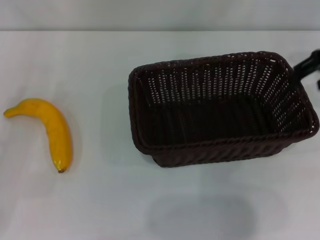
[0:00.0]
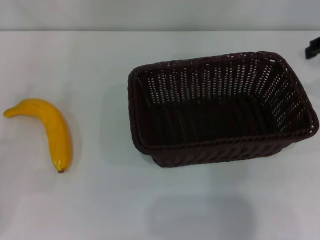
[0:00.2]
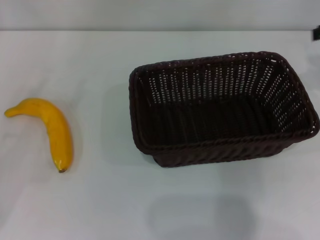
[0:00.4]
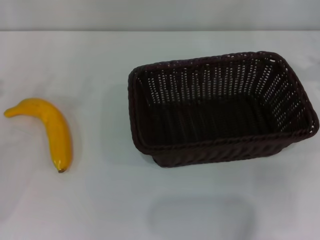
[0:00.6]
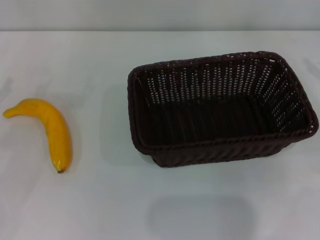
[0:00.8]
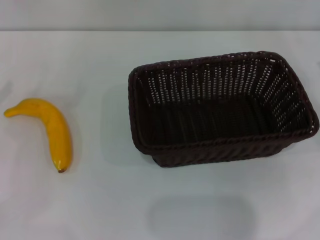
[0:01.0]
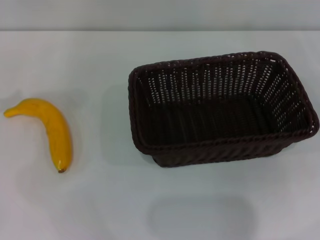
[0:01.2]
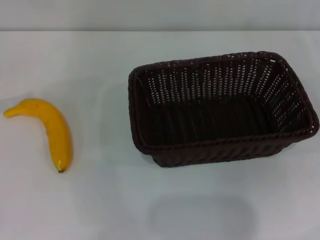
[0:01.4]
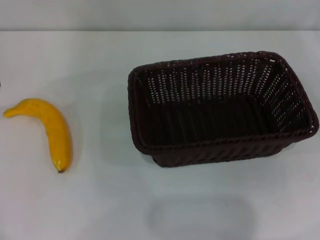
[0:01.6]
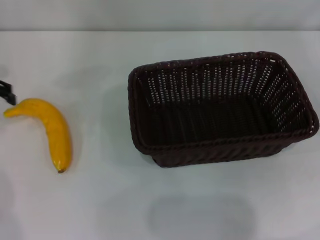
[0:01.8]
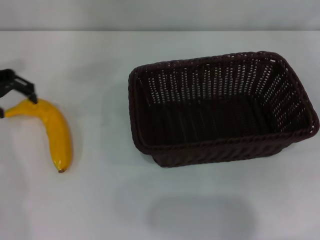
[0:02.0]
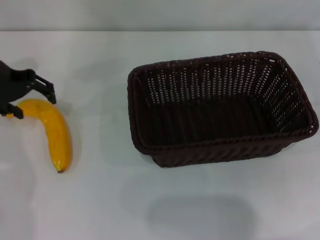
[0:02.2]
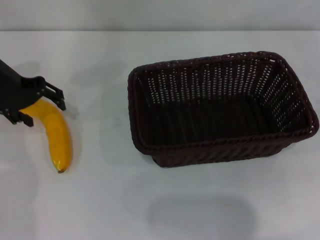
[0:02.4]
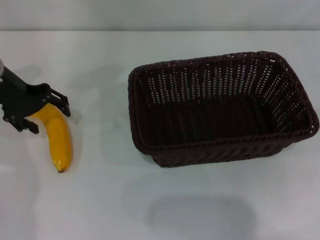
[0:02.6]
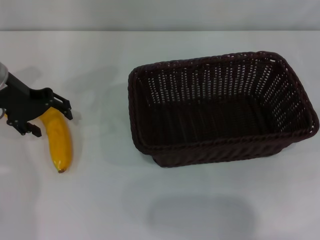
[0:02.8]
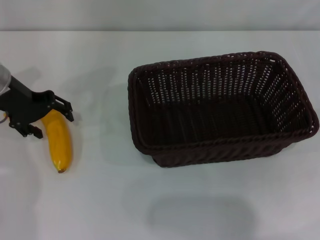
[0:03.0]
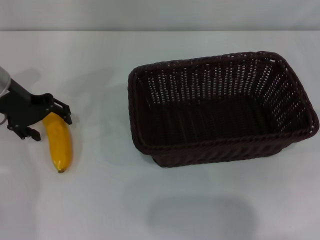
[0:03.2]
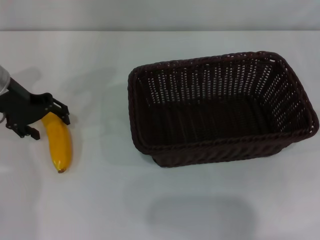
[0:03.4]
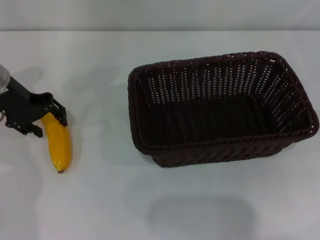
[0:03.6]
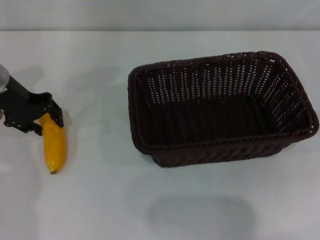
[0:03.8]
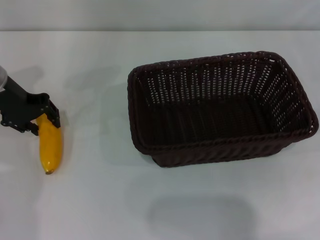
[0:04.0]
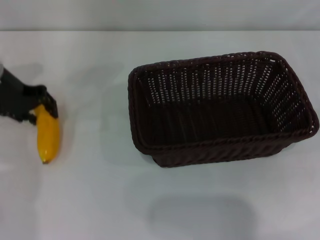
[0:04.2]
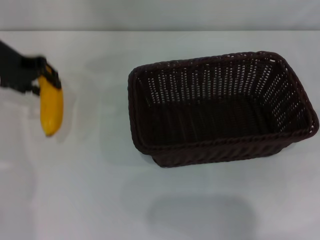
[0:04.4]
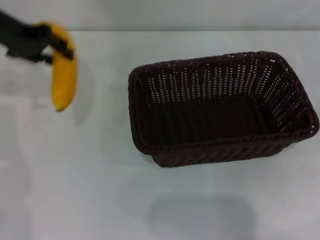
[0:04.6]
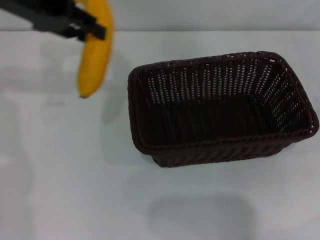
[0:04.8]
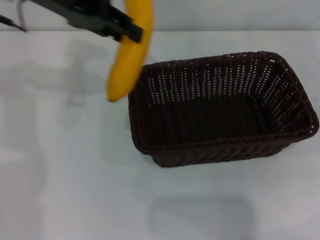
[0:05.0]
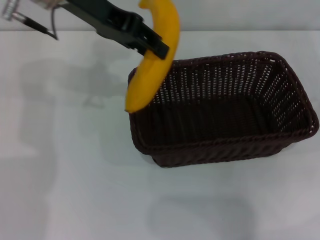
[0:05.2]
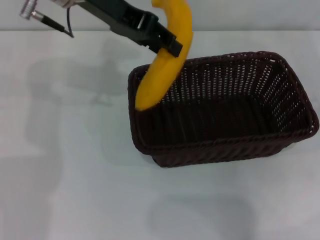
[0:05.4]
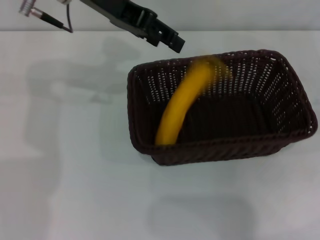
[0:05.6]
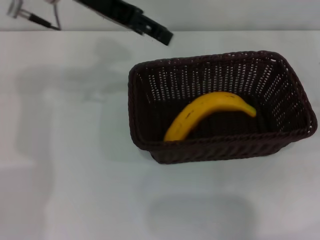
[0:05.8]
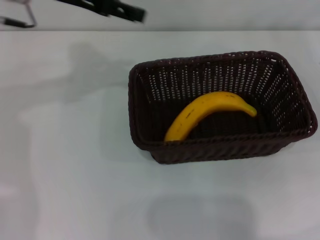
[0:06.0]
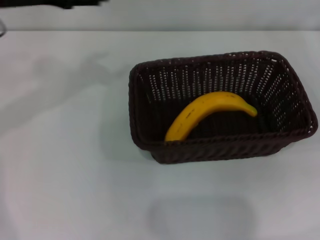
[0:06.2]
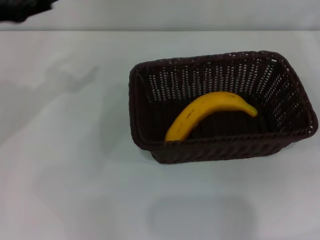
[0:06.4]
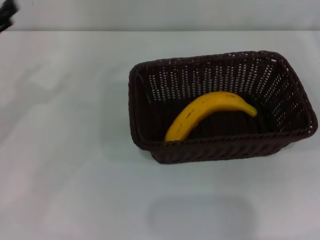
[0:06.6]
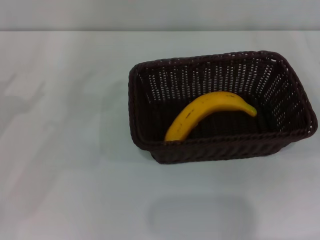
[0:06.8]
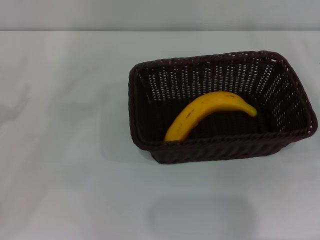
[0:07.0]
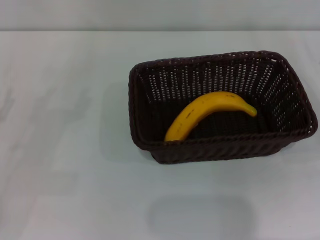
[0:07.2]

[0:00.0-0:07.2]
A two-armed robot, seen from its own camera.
Step, 0:00.6 to 0:04.2: Pick up the banana with the left gripper.
Step, 0:04.6 to 0:05.8: Place the banana into the dark basket with the left gripper.
0:00.0 to 0:01.4: The right gripper is displaced to the right, downward and backward by roughly 20 cm.
0:01.4 to 0:02.8: The left gripper goes some 15 cm to the right, downward and forward.
0:02.8 to 0:04.4: The left gripper closes.
0:04.4 to 0:05.8: The left gripper goes about 15 cm to the right and upward, and opens up.
0:05.8 to 0:07.2: The left gripper travels downward, to the left and backward by some 35 cm; the right gripper changes place by roughly 5 cm.

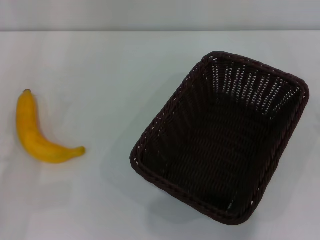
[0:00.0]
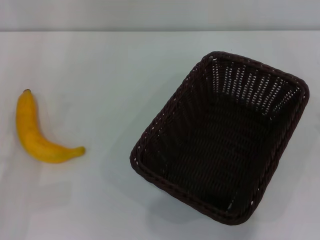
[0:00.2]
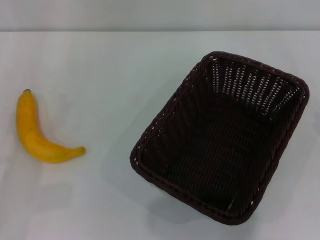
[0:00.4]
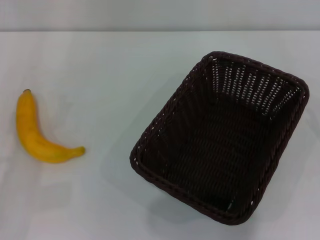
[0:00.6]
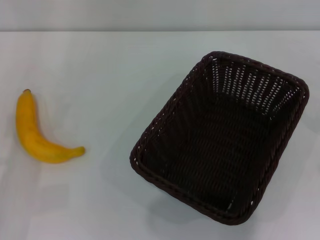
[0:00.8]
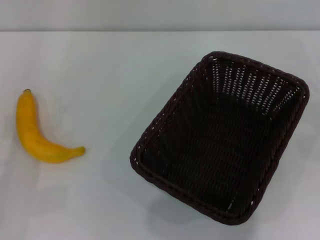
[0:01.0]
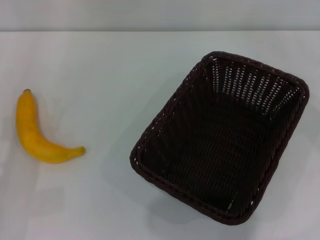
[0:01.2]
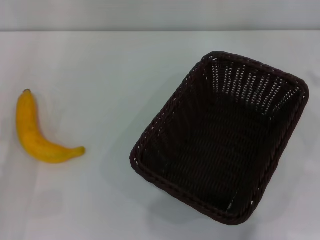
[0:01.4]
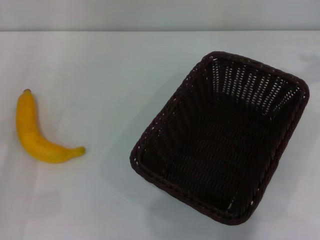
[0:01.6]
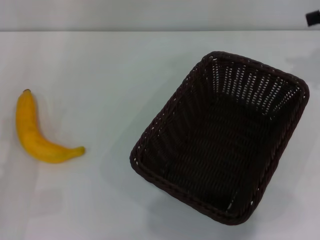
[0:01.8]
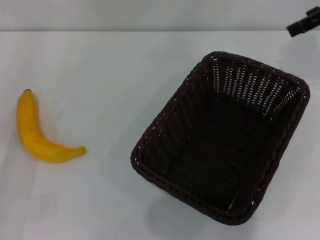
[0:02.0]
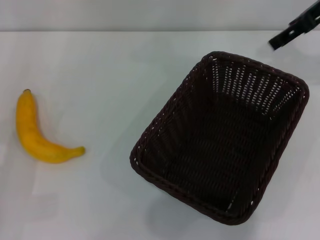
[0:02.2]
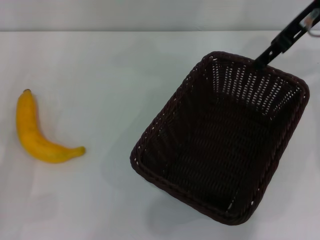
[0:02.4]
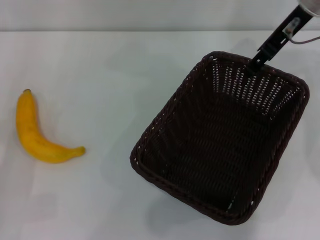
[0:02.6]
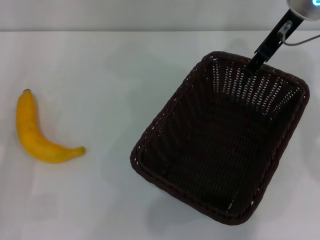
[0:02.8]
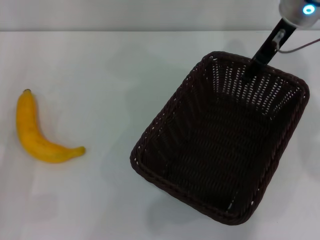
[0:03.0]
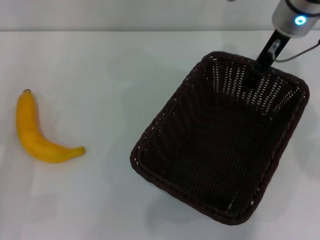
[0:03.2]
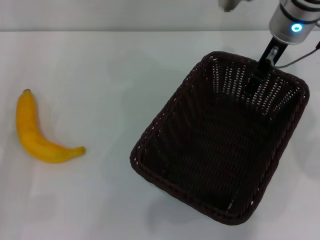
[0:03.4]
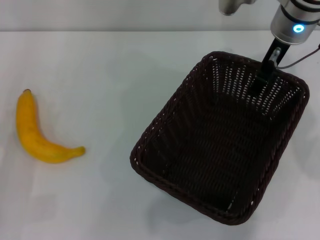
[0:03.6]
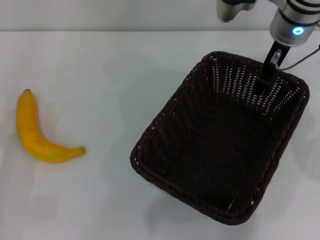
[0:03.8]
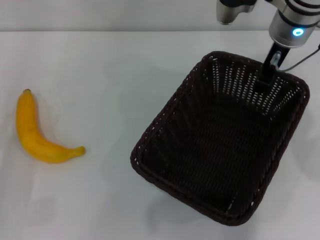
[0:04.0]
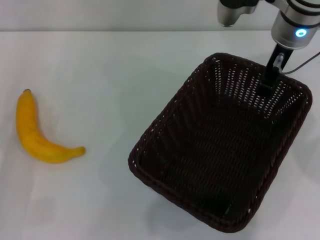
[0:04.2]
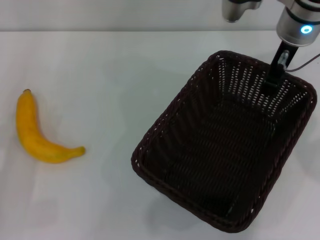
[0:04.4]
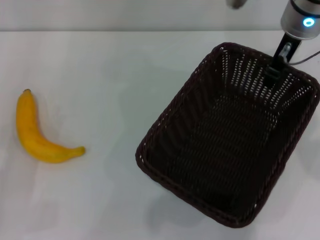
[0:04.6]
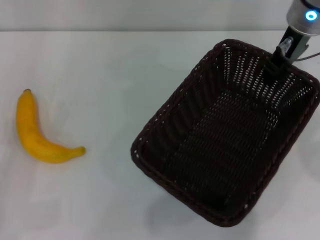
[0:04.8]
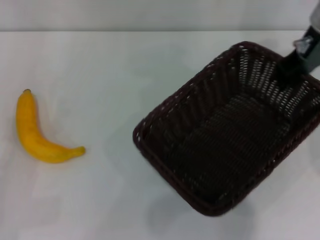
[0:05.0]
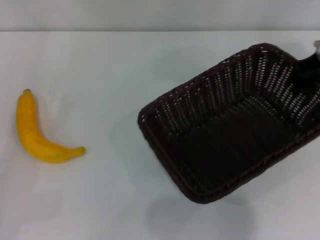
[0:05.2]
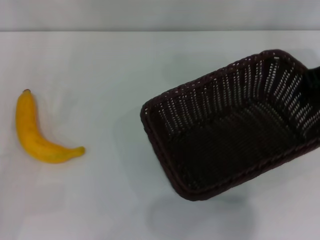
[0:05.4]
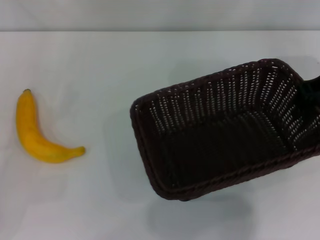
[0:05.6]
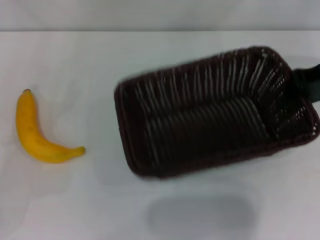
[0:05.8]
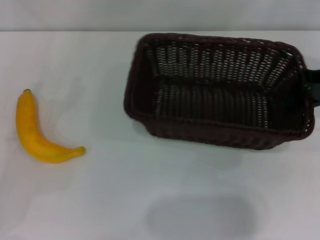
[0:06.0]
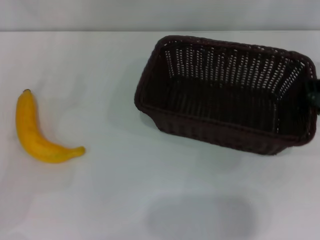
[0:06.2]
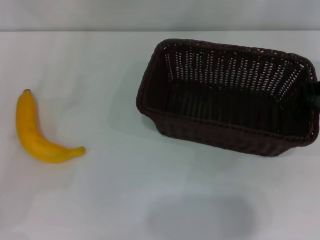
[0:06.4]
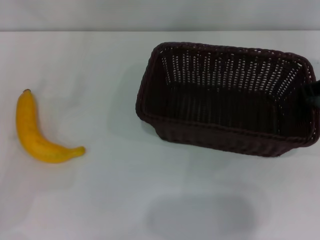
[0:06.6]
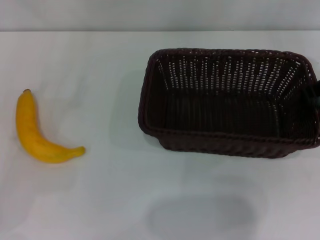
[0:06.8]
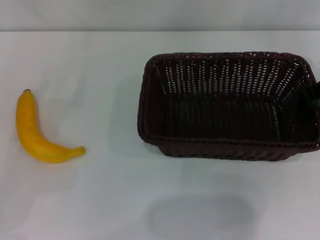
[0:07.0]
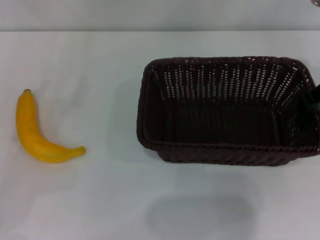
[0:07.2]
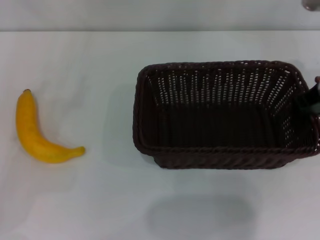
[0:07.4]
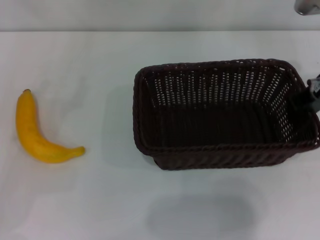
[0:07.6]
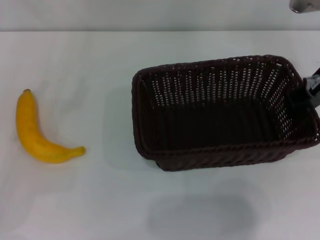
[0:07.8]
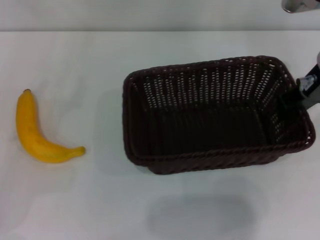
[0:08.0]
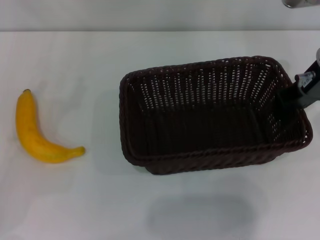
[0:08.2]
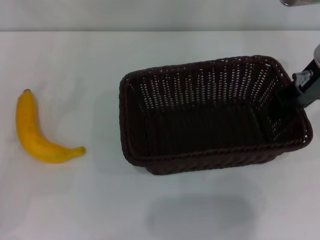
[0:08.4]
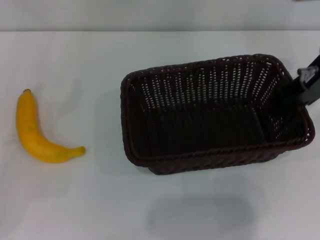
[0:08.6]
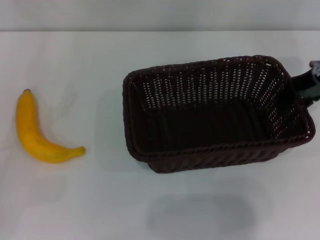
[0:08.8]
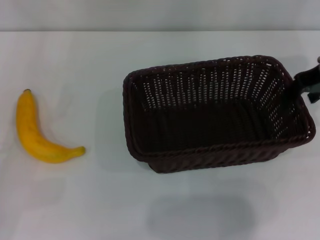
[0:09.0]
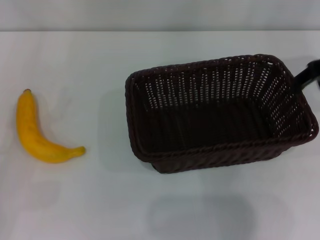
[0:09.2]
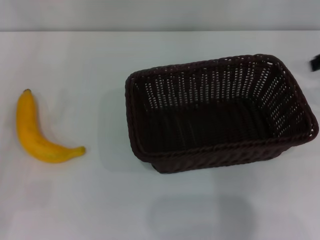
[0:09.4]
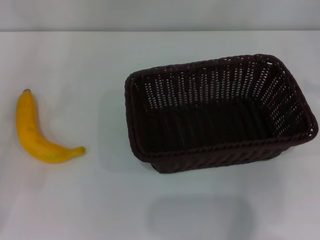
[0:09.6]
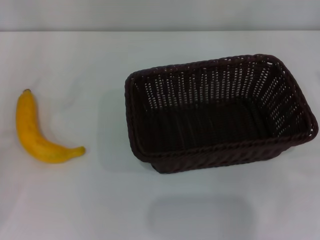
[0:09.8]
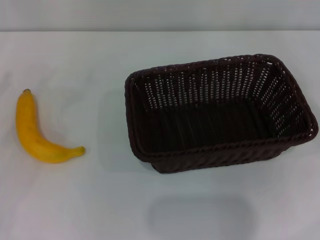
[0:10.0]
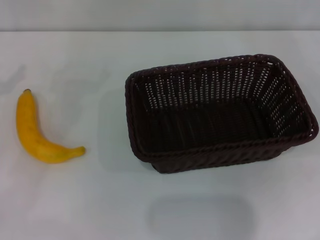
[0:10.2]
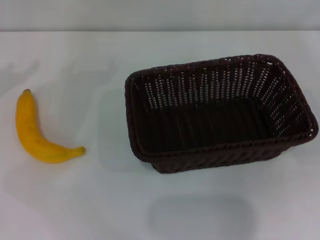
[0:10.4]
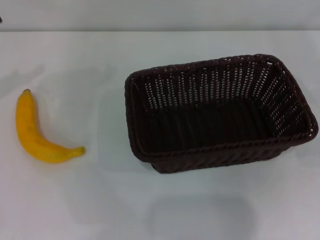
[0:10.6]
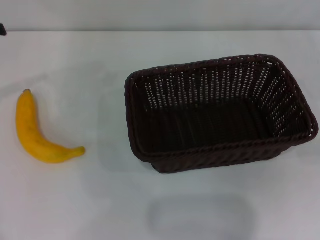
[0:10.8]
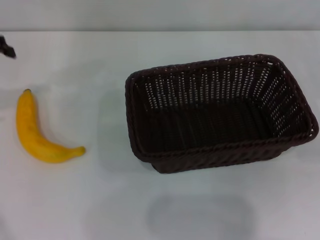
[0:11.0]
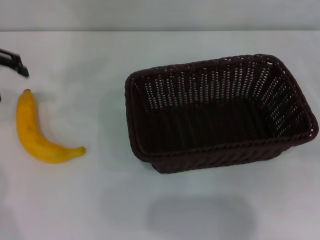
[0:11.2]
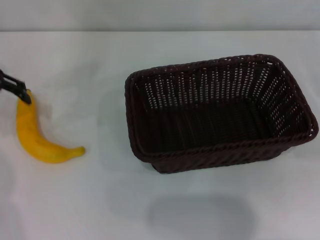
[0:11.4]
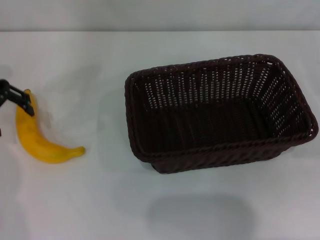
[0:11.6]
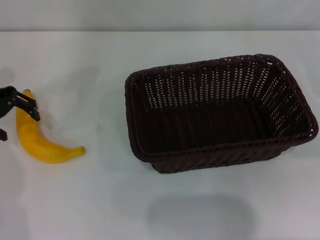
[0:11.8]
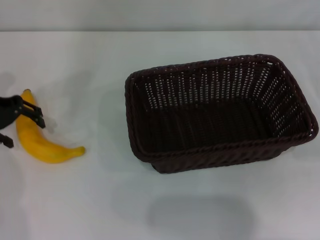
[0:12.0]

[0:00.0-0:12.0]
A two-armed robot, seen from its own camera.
Step, 0:00.0 to 0:04.6: Pick up the dark basket with the right gripper.
Step, 0:04.8 to 0:09.2: Place the dark basket in the center of view with the right gripper.
0:01.6 to 0:03.0: The right gripper shifts approximately 20 cm to the left.
0:03.0 to 0:04.4: The right gripper closes.
0:04.4 to 0:06.0: The left gripper is displaced forward by approximately 5 cm. Meanwhile the right gripper moves to the right and backward, some 15 cm.
0:06.0 to 0:07.6: The right gripper travels to the left by about 5 cm.
0:07.6 to 0:09.0: The right gripper opens.
0:09.0 to 0:10.4: The left gripper travels upward and forward by some 15 cm; the right gripper travels to the right, backward and downward by some 25 cm, and opens its fingers.
0:10.4 to 0:12.0: The left gripper travels to the right by some 5 cm.

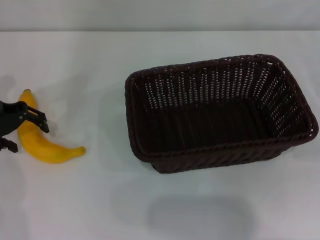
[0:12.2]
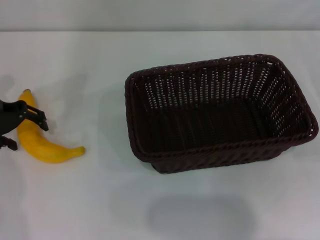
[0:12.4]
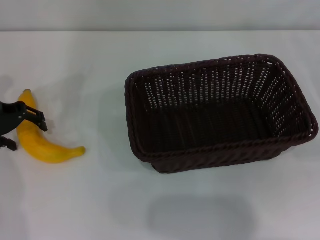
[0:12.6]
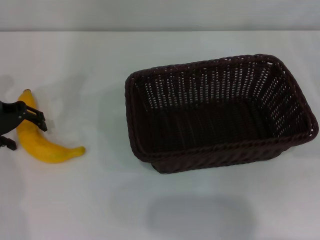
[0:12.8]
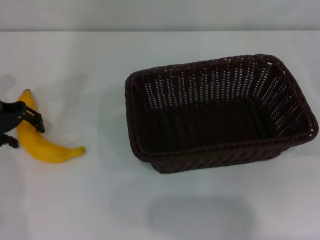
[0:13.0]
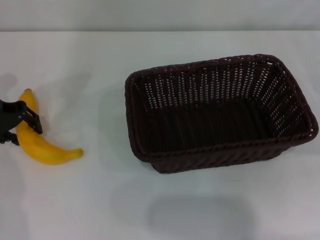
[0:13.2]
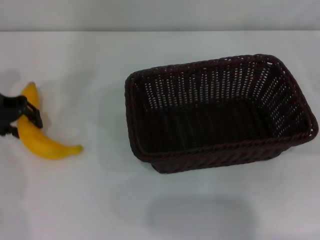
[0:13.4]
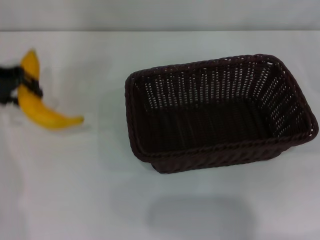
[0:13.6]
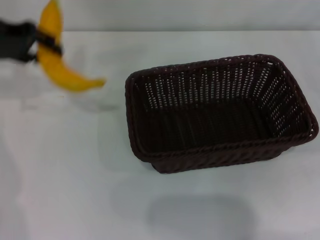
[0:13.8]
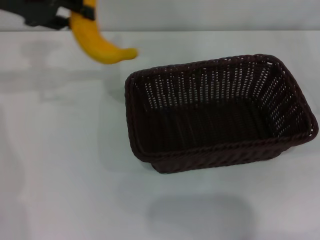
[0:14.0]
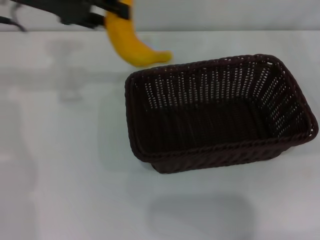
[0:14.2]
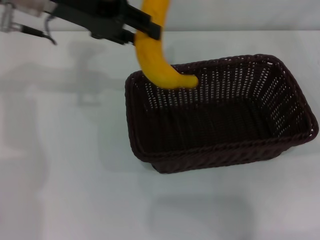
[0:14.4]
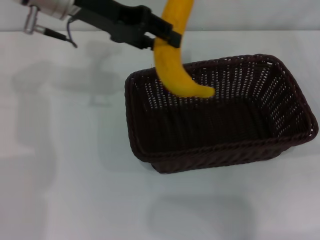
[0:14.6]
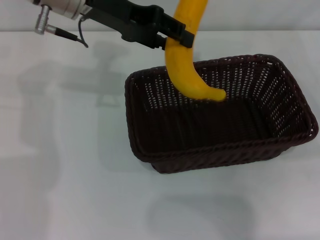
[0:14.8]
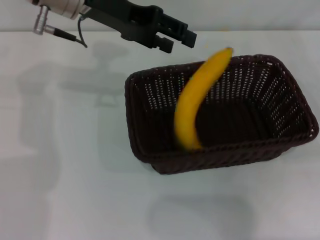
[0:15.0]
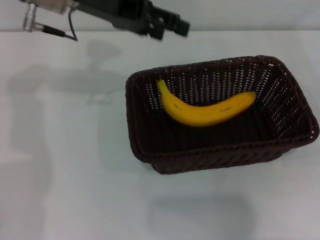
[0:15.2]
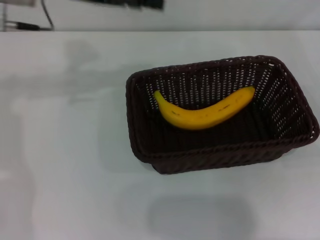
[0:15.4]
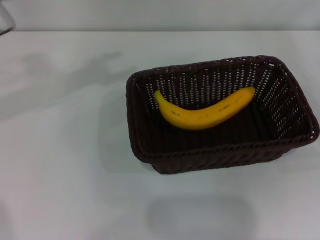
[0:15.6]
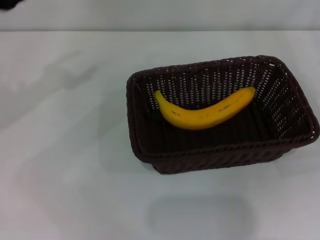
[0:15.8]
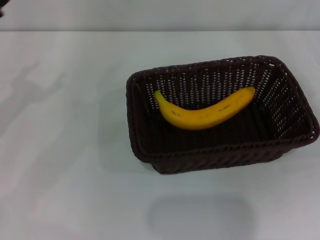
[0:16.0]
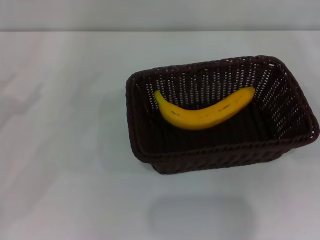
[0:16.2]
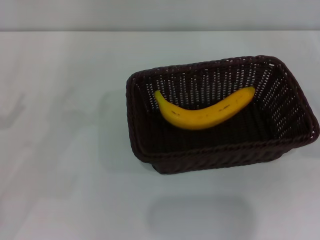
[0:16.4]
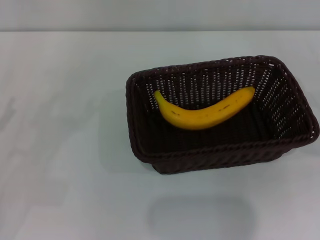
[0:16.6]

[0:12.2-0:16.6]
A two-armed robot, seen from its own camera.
Step, 0:13.8 to 0:15.0: Place the banana into the dark basket with the left gripper.
0:12.2 to 0:13.6: The left gripper closes.
0:13.6 to 0:15.2: The left gripper moves to the right and upward, about 15 cm, and opens.
0:15.2 to 0:16.6: The left gripper goes about 35 cm to the left, backward and downward, and opens.
